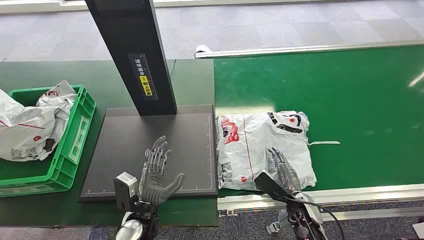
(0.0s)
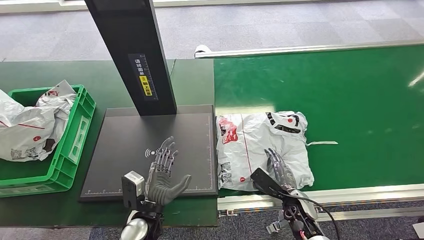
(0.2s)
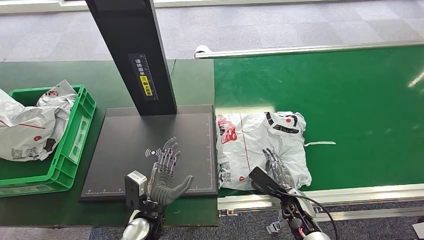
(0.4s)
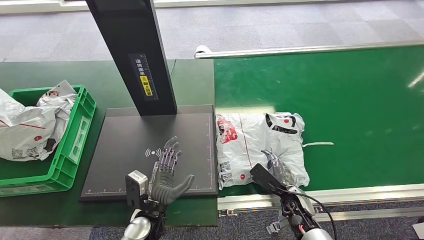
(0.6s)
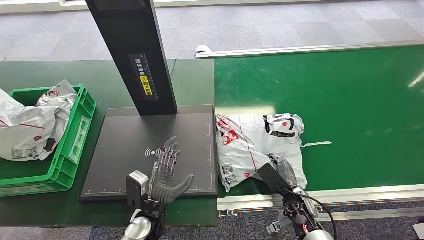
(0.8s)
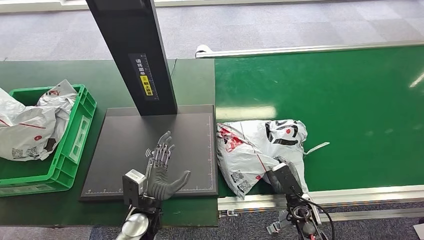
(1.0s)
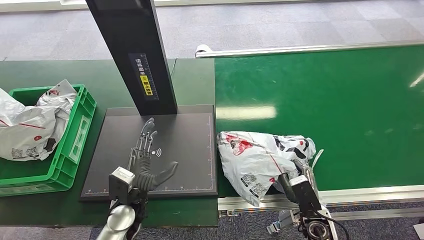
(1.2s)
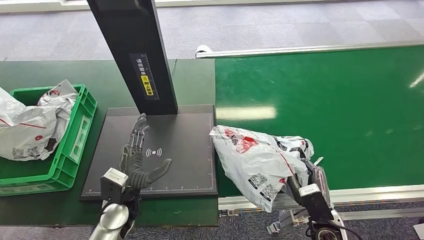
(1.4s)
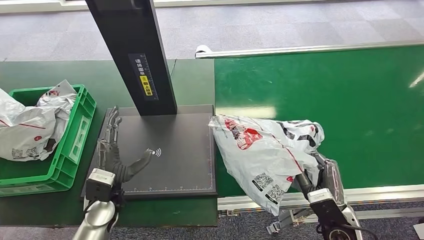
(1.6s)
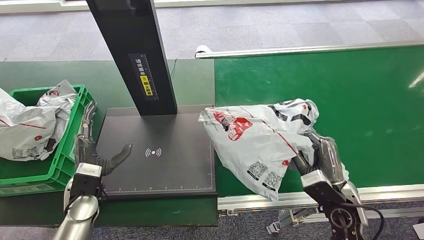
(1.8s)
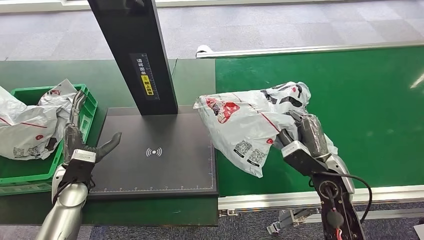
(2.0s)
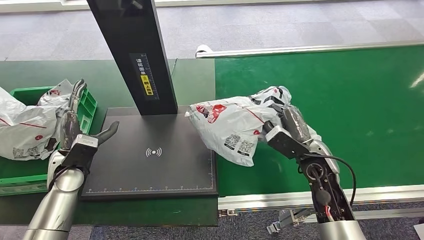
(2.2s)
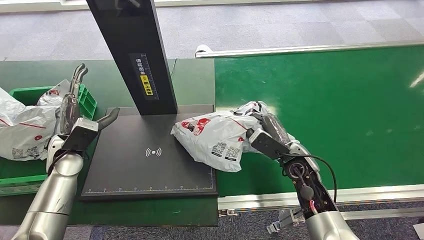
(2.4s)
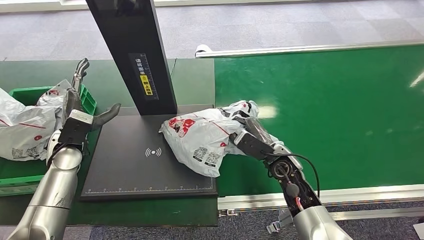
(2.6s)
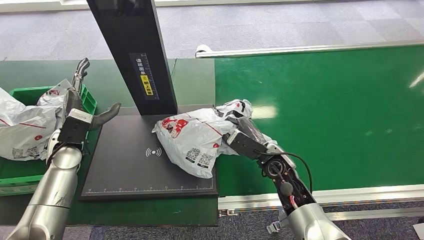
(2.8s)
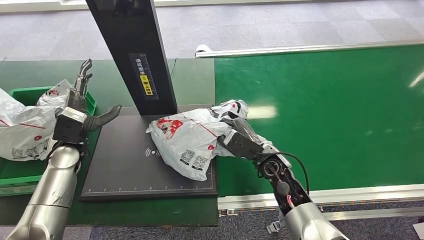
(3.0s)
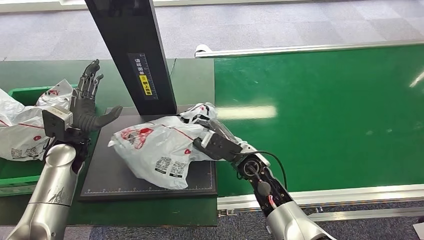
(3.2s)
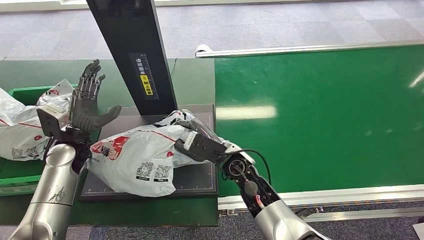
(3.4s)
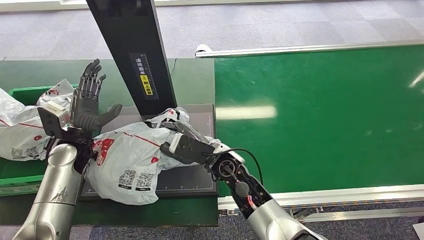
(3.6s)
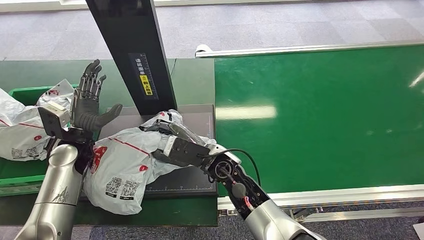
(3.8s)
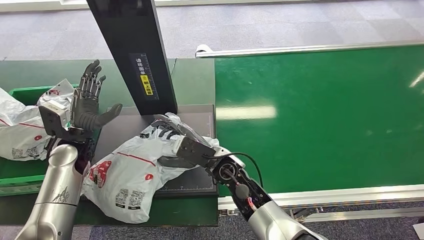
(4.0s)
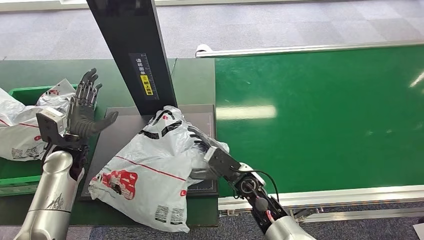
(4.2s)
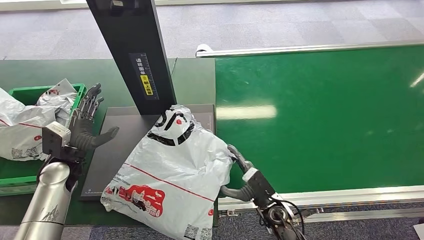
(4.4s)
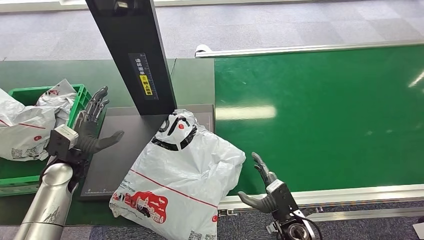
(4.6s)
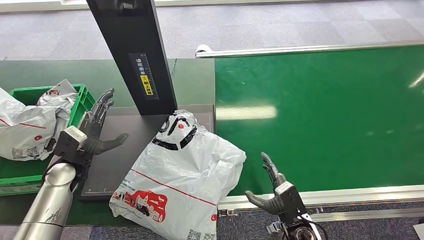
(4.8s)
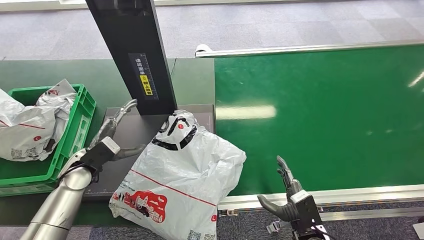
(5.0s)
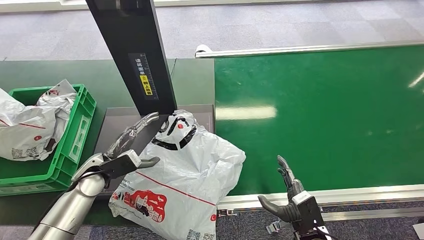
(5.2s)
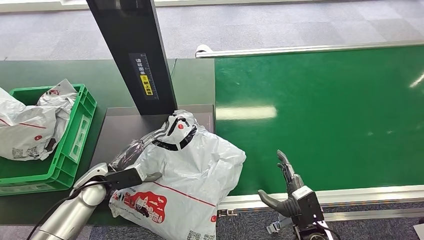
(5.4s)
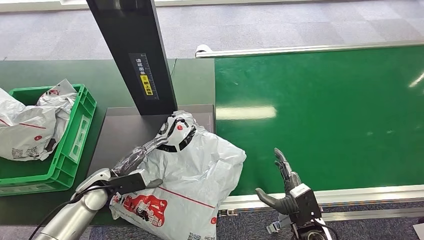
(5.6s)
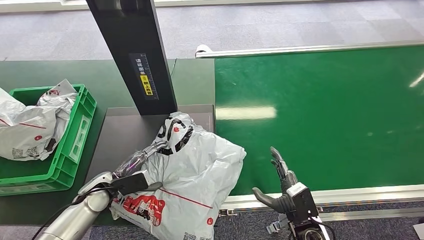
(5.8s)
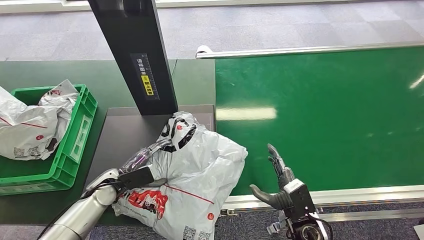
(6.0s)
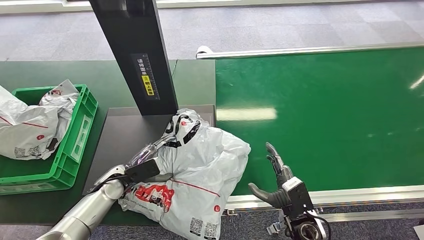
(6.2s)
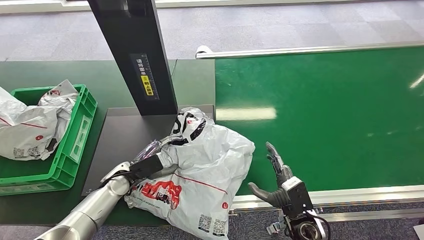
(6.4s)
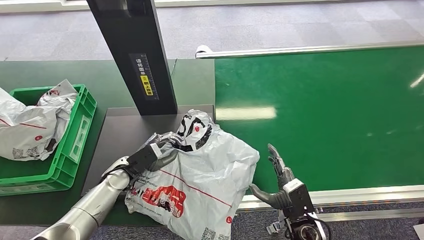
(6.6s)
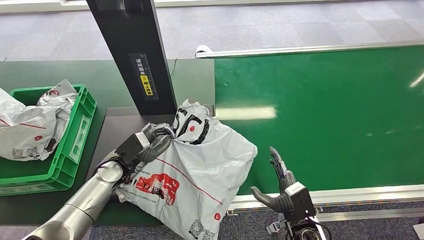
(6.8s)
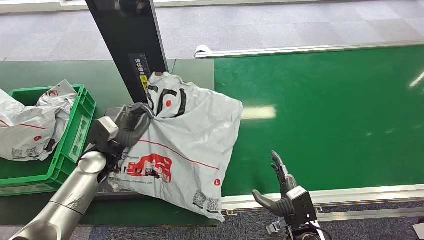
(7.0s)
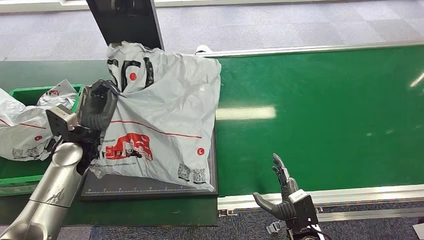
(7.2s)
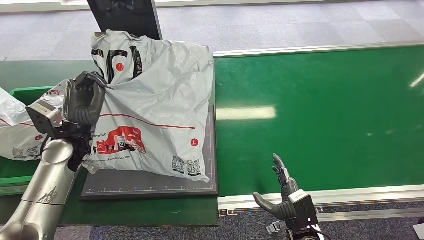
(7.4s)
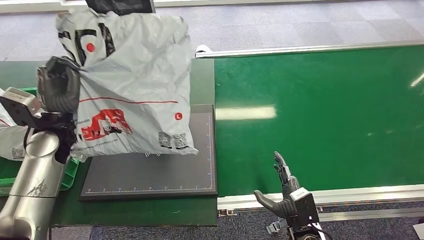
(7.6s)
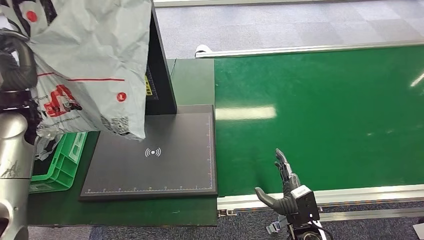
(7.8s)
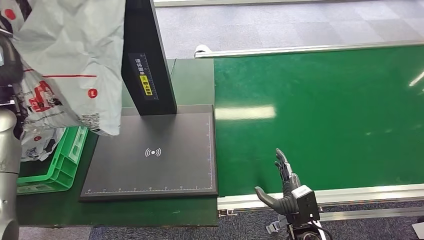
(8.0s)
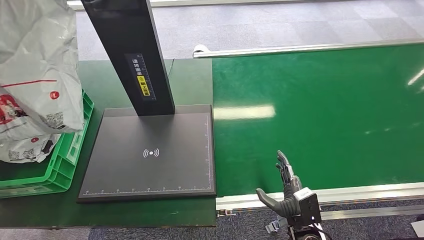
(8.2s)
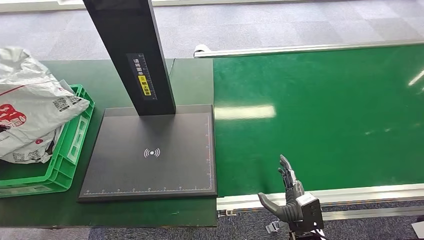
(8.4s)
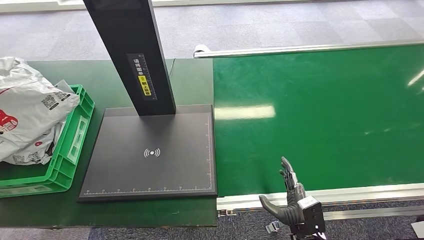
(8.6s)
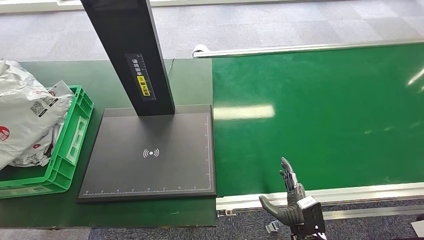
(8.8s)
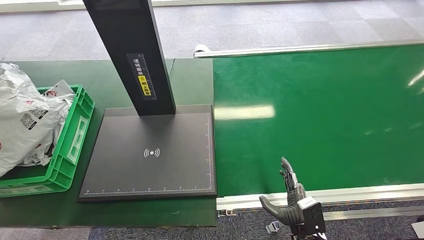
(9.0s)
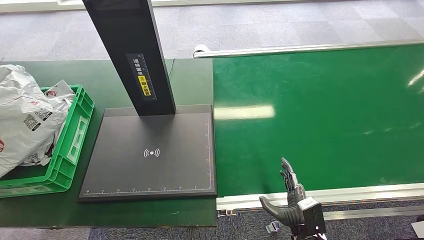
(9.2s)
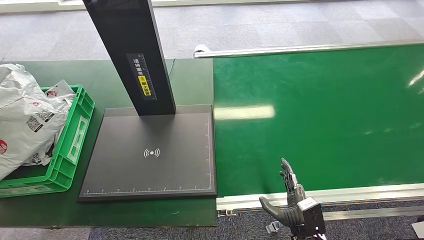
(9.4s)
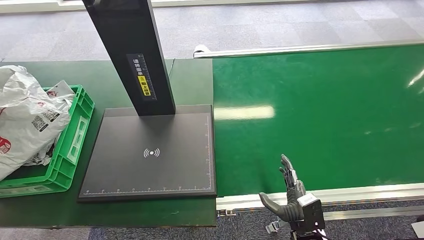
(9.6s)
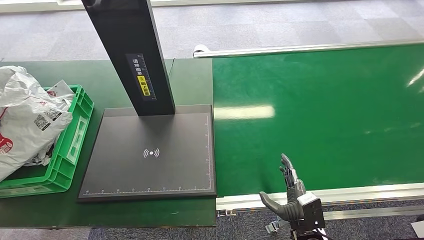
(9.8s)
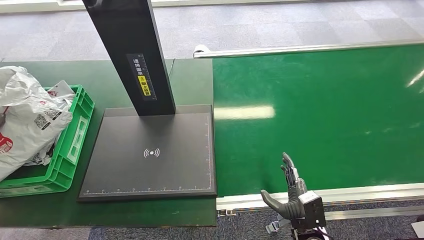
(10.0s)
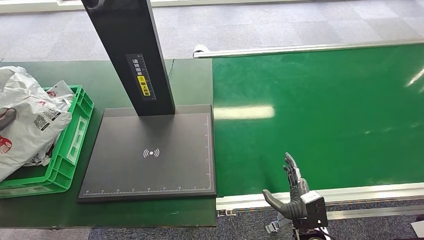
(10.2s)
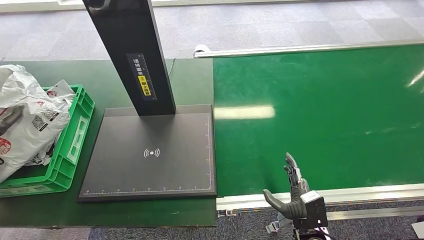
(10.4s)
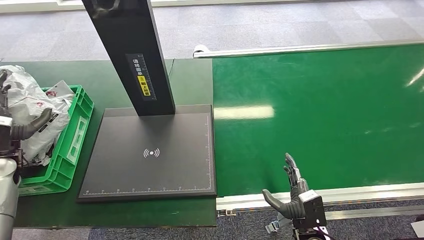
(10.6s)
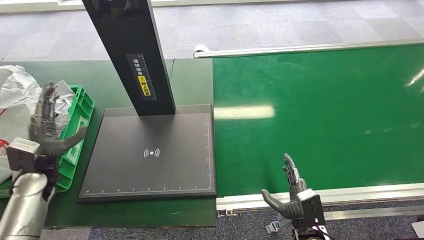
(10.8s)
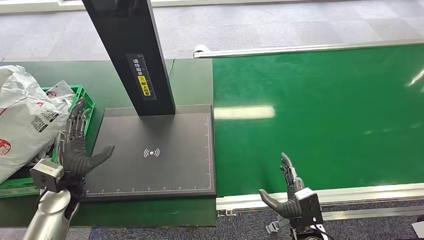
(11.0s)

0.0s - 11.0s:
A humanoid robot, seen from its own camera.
Step, 0.0s - 2.0s: Pick up the package from the conveyor belt.
Step, 3.0s - 5.8s: Place the package onto the inbound machine.
Step, 6.0s - 8.0s: Pick up the package from the inbound machine.
Step, 8.2s - 10.8s: Place the package into the parcel locker.
9.4s - 11.0s: The left hand shifts some 30 cm to the right.

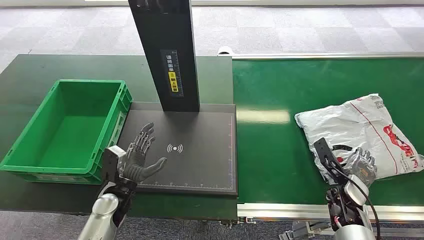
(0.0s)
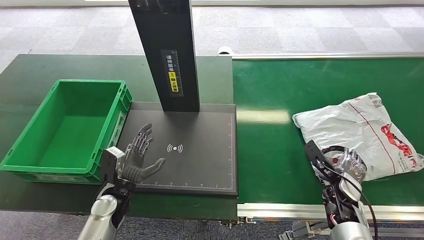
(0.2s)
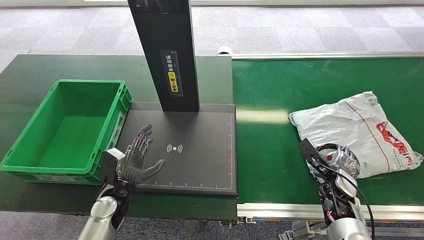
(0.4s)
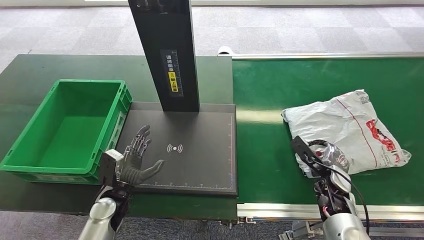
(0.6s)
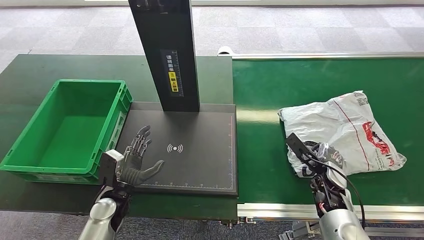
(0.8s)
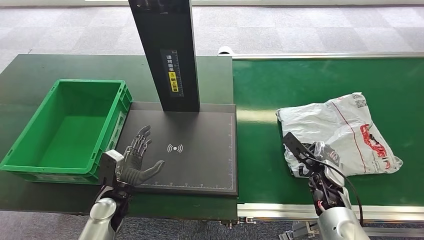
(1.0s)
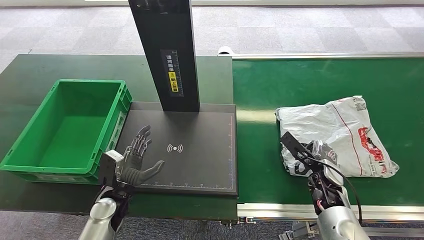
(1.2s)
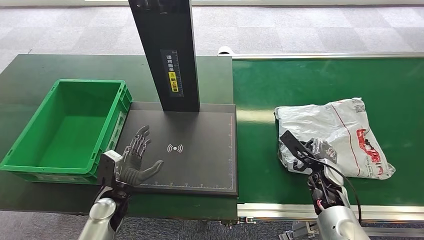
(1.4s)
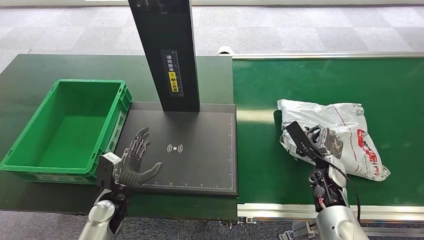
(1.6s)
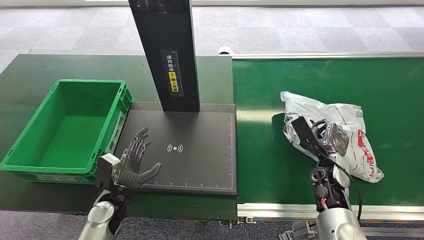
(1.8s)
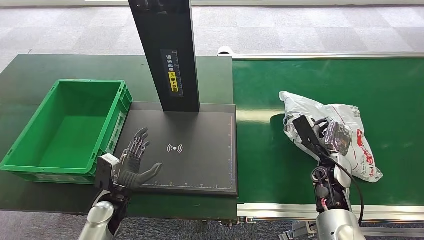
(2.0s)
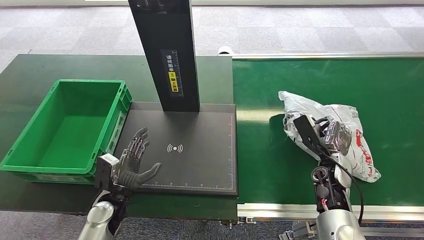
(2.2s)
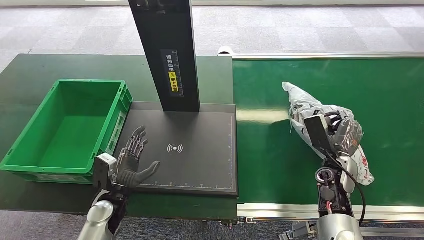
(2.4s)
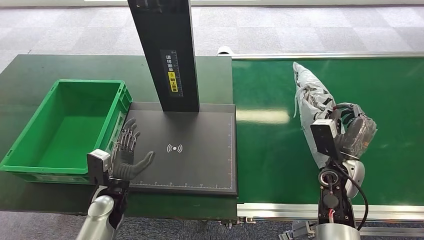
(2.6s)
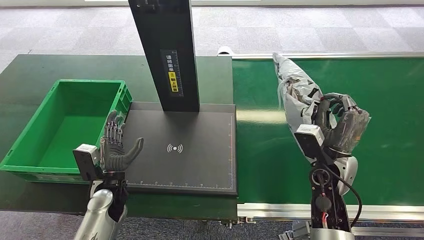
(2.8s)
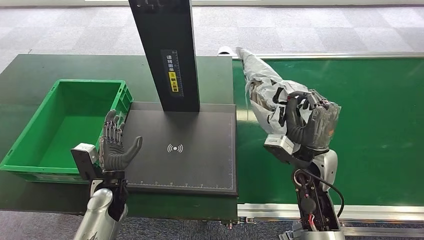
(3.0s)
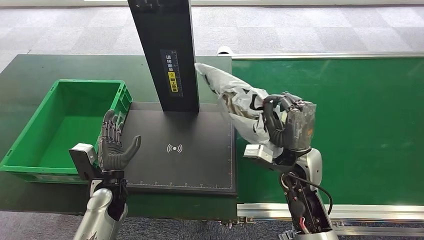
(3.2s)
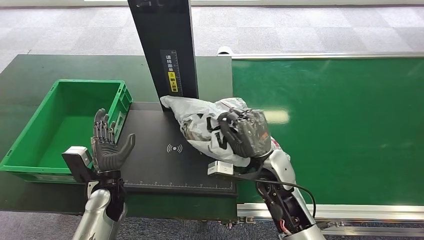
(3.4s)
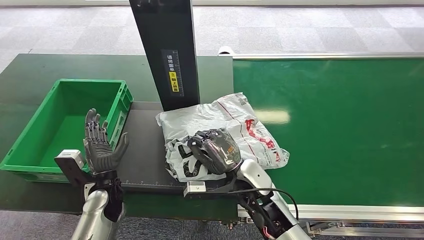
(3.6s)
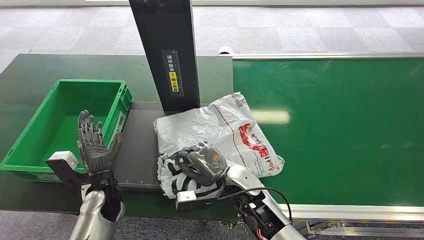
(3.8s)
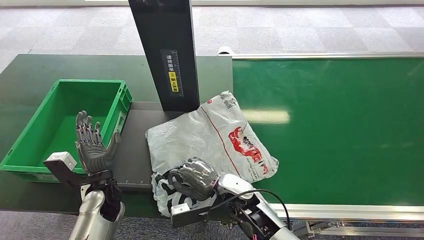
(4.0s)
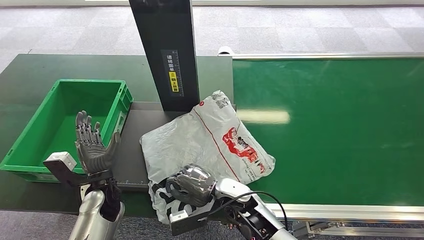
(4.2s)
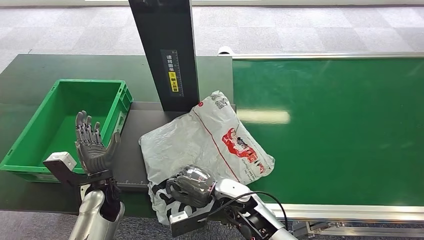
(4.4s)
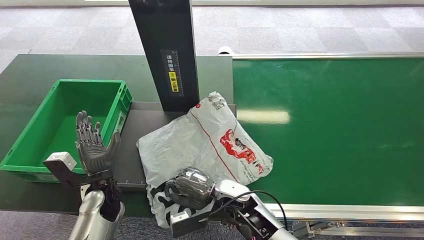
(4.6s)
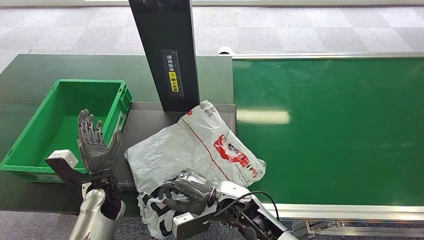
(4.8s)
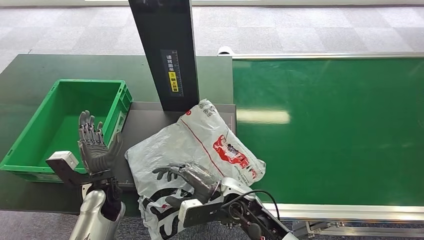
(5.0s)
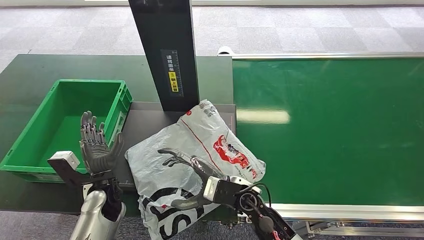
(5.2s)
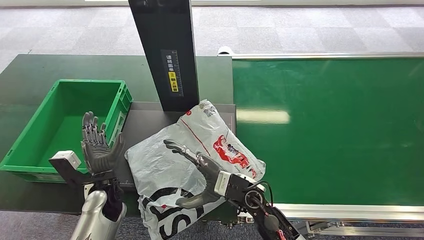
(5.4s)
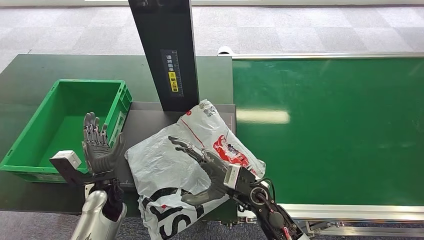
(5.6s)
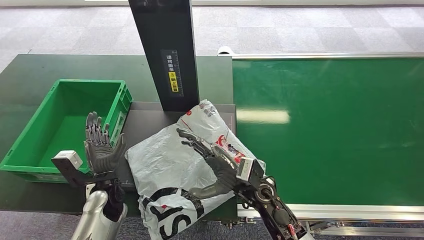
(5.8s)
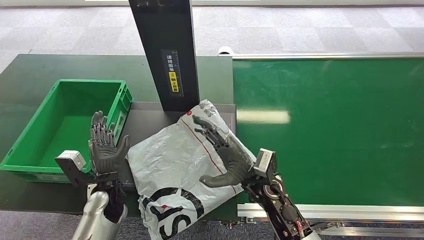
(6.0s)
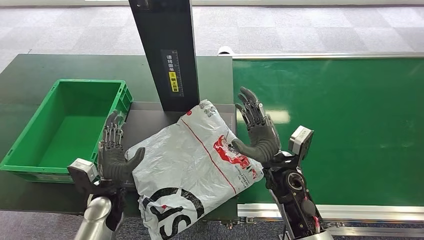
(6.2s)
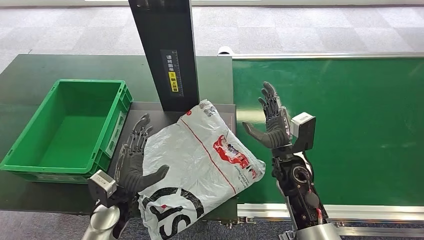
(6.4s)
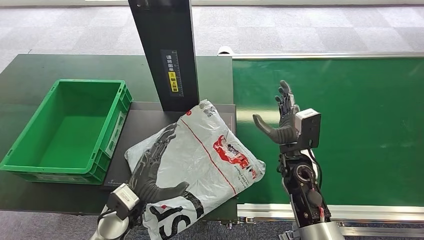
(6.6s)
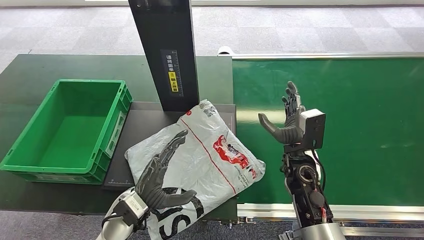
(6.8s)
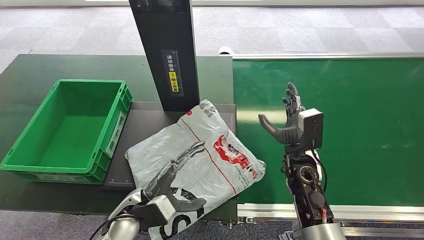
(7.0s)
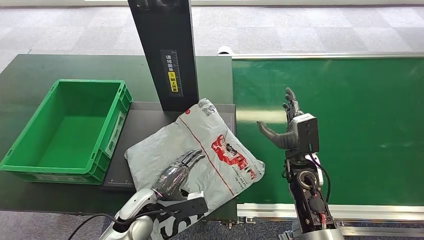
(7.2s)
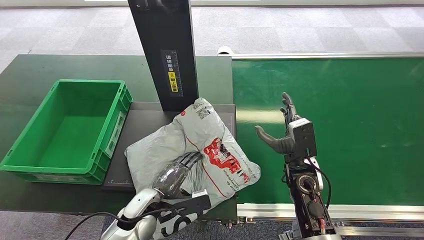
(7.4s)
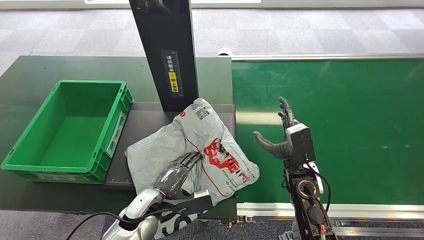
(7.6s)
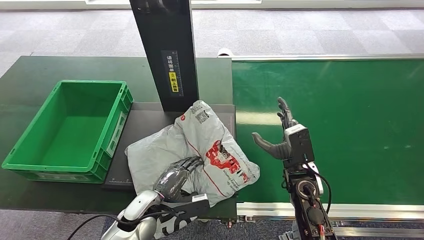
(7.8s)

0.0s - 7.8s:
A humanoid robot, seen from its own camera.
Step, 0.0s - 3.0s: Pick up the package from the conveyor belt.
Step, 3.2s - 5.6s: Place the package onto the inbound machine.
1.6s - 3.2s: The right hand is displaced to the left and upward by some 15 cm.
4.6s - 6.2s: The right hand travels to the right and upward by about 10 cm.
